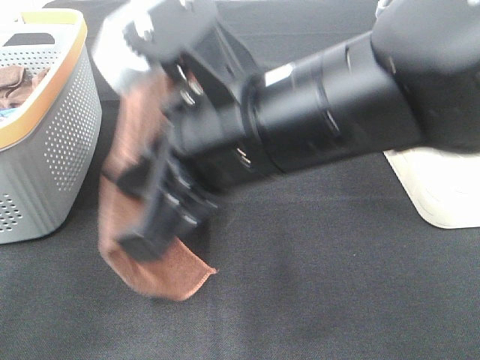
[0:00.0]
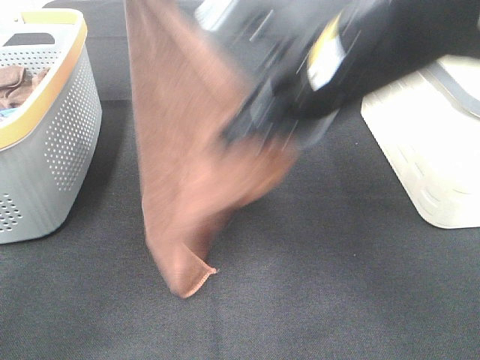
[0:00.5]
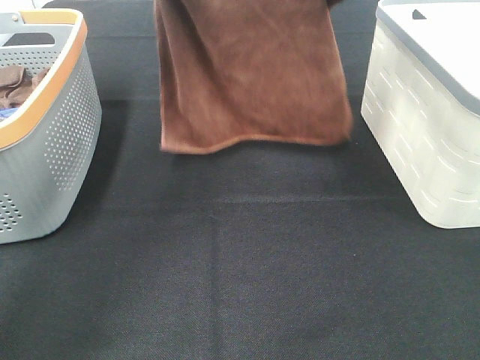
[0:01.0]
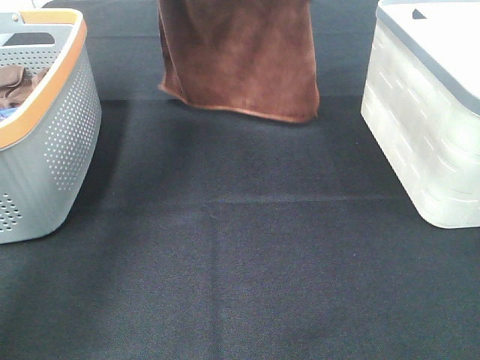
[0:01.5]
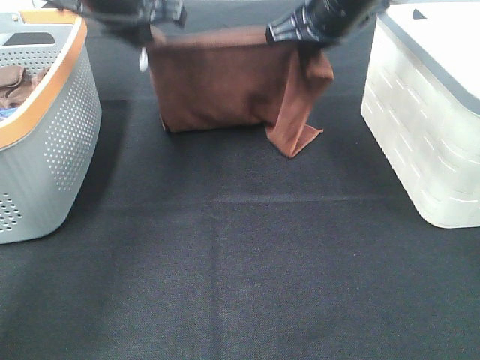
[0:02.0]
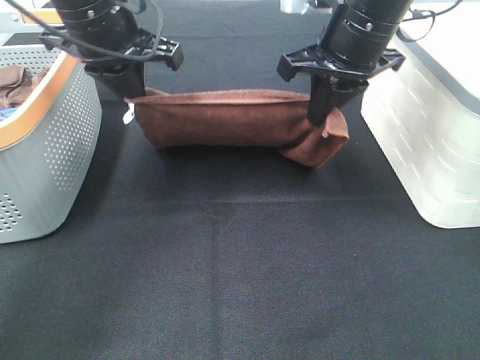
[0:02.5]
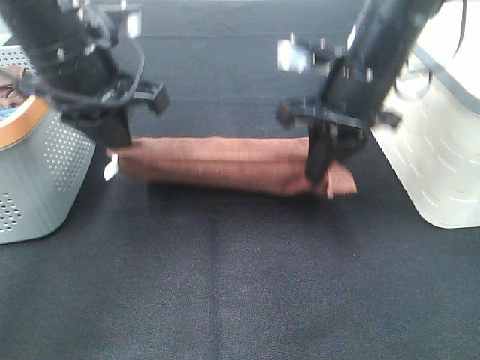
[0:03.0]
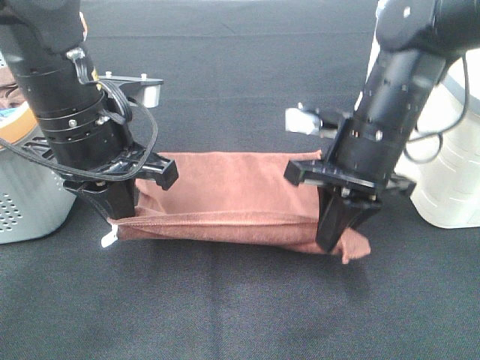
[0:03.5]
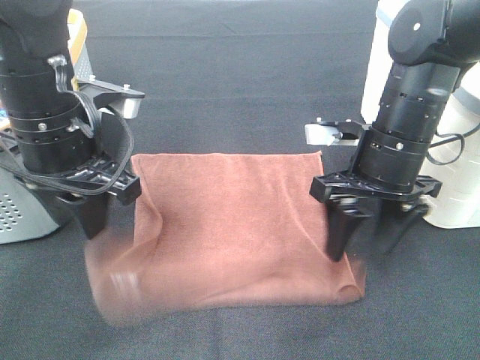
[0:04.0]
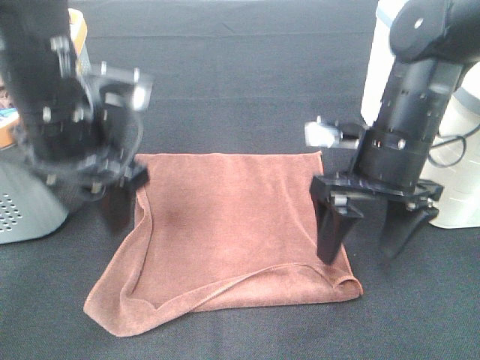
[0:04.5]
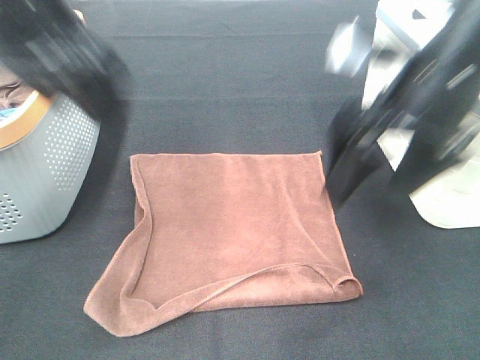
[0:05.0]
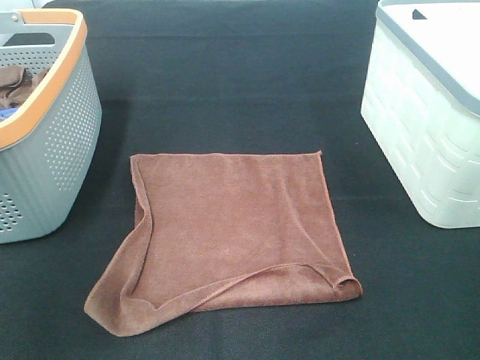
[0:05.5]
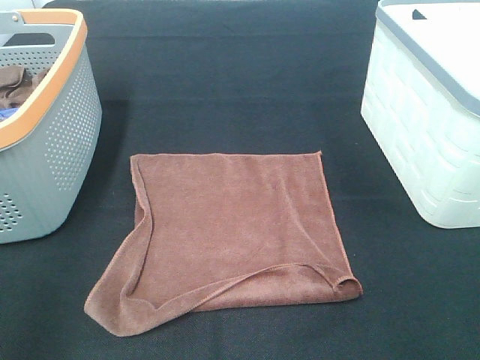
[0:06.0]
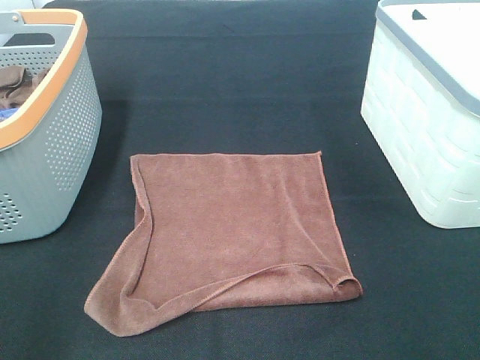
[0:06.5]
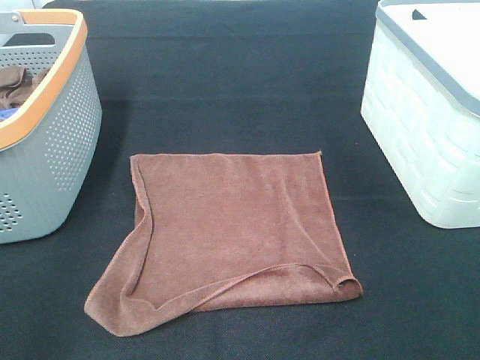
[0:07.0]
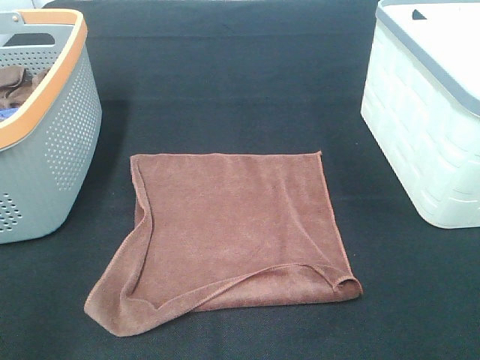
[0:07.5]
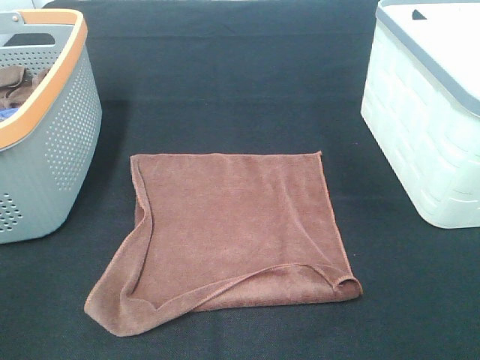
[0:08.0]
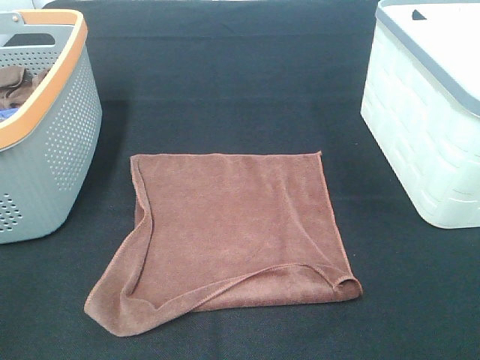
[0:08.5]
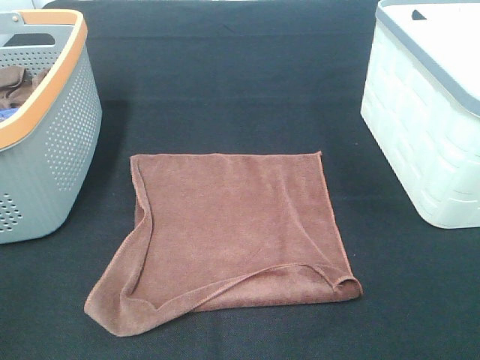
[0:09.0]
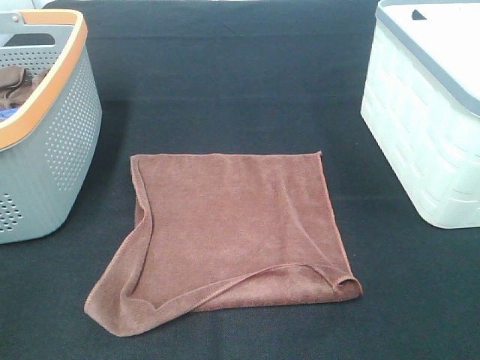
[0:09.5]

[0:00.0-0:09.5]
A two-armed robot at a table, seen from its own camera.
Task of the whole recording: Remove the towel and place it.
0:00.0 to 0:02.0: The right gripper goes roughly 25 cm forward and to the right; the left gripper travels downward and forward by some 10 cm.
0:02.0 to 0:04.0: The right gripper moves backward and downward, approximately 15 cm, and opens its fingers. Meanwhile the left gripper shifts some 15 cm backward, and opens its fingers.
0:04.0 to 0:05.5: The right gripper travels backward, upward and to the right by about 25 cm; the left gripper goes about 20 cm upward, backward and to the left.
0:05.5 to 0:07.5: The left gripper shifts some 15 cm downward and backward. Meanwhile the right gripper shifts roughly 10 cm backward.

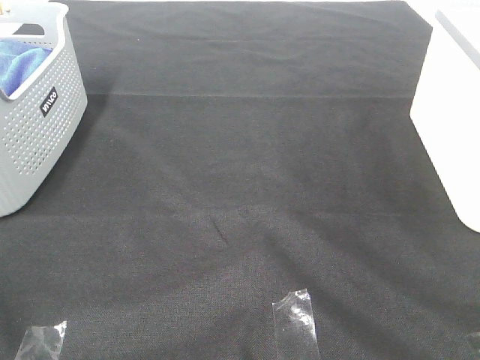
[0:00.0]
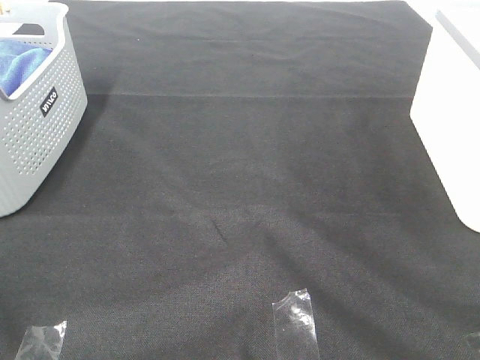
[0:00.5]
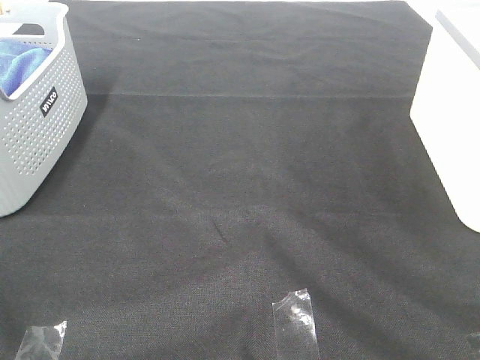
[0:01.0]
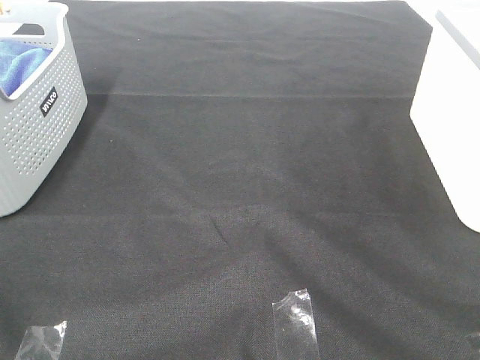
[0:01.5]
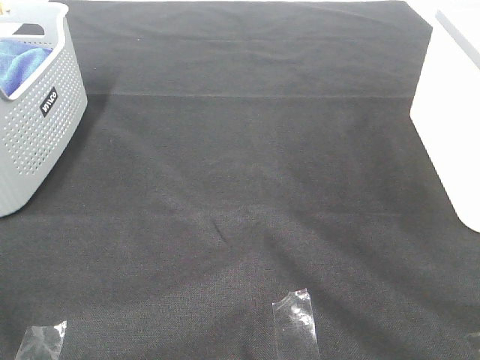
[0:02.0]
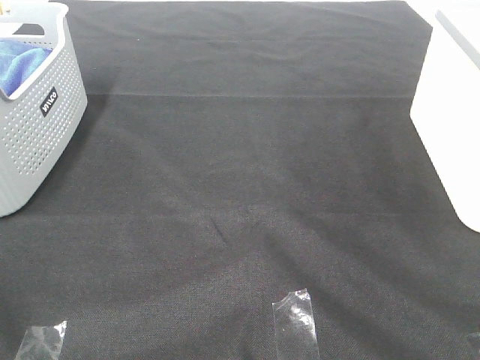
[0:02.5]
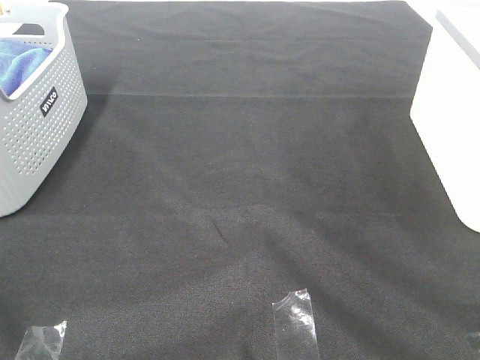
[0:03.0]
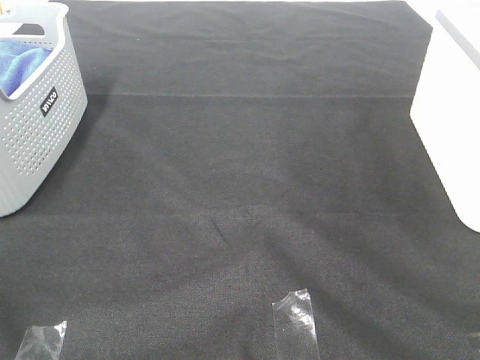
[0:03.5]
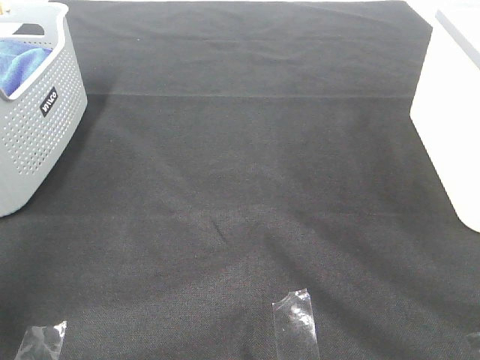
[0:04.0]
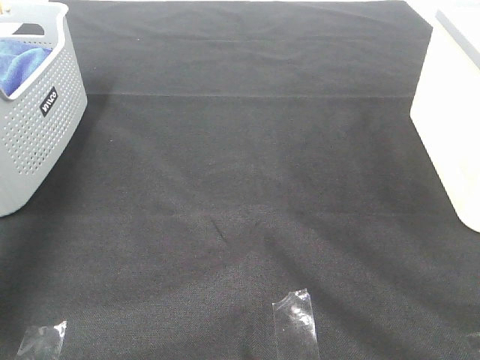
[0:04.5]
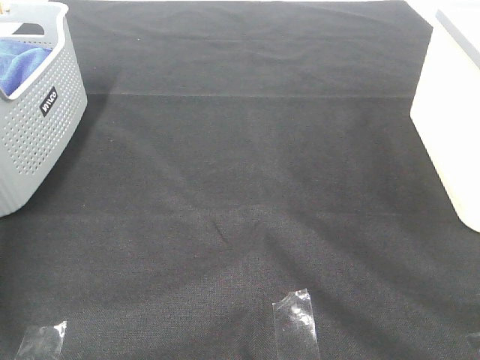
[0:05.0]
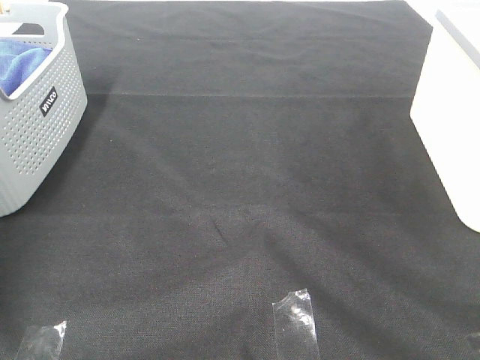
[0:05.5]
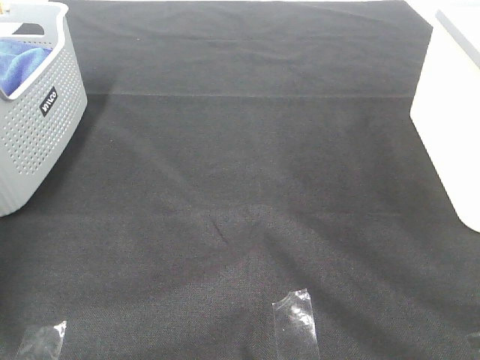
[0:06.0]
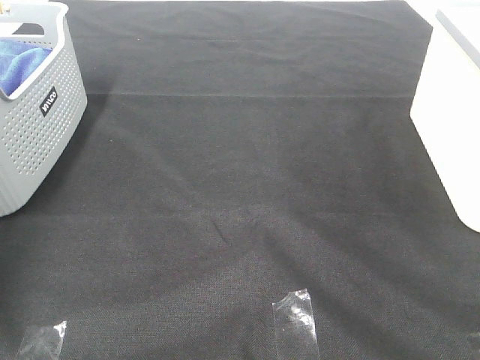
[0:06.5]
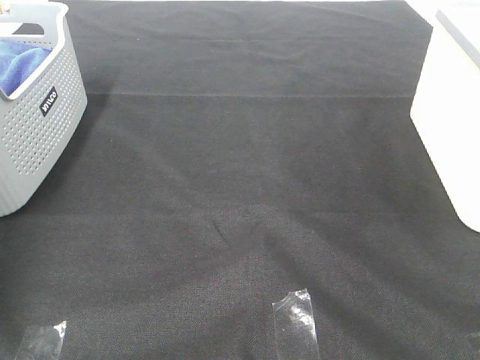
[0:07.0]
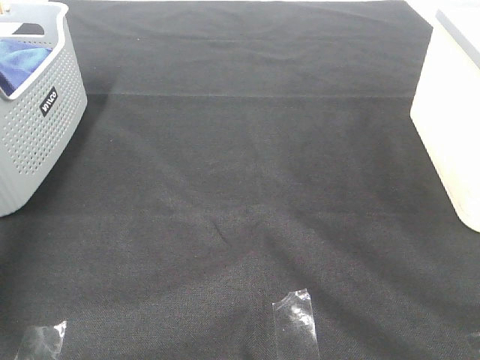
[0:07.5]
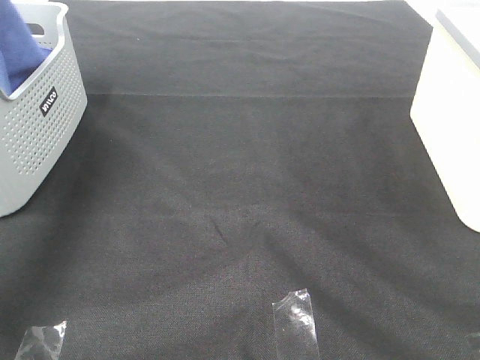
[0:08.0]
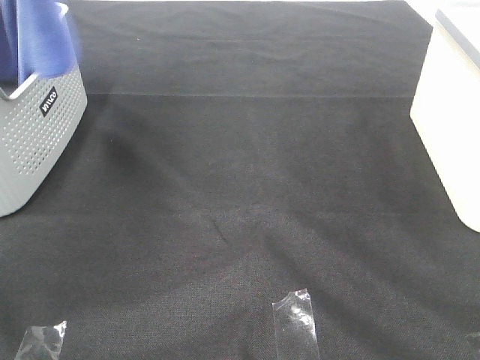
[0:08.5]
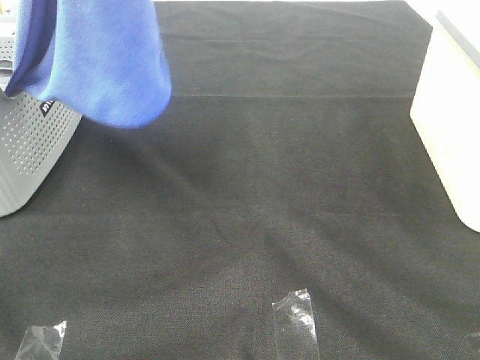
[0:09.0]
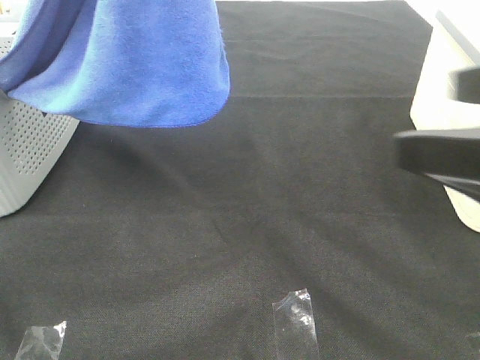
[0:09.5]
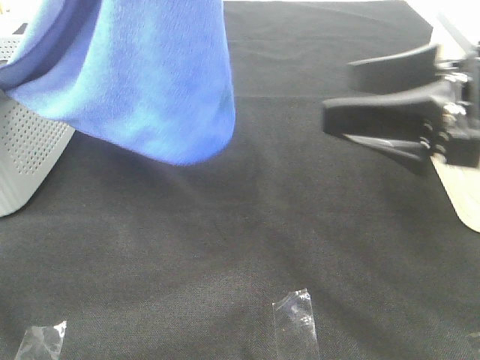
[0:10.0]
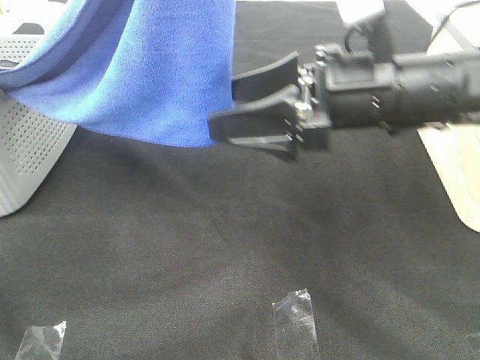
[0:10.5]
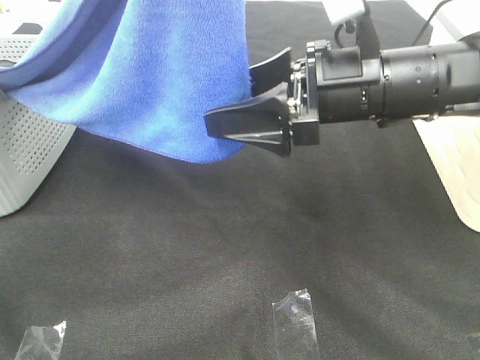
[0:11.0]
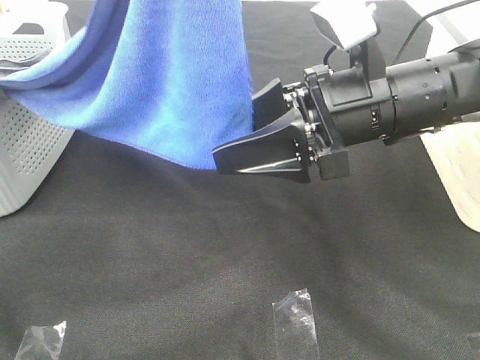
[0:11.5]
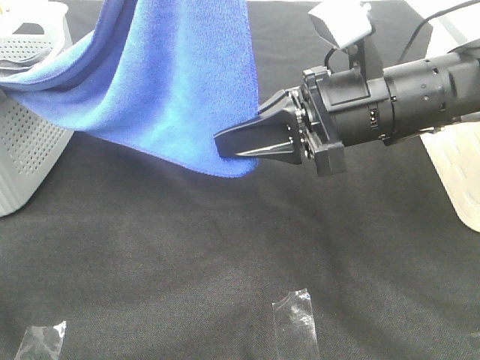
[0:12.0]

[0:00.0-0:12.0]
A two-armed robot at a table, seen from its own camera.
Task of the whole recording: Remove the towel and place it.
0:00.0 to 0:02.0: Both grippers stay put.
0:06.0 to 0:08.0: The left gripper heads upward and to the right, covering roughly 30 cm, and closes.
0:08.0 to 0:10.0: The left gripper travels to the right and backward by about 25 cm, while the right gripper travels forward and to the left by approximately 25 cm.
0:10.0 to 0:12.0: The right gripper goes about 10 cm to the left and forward, and closes its fingers.

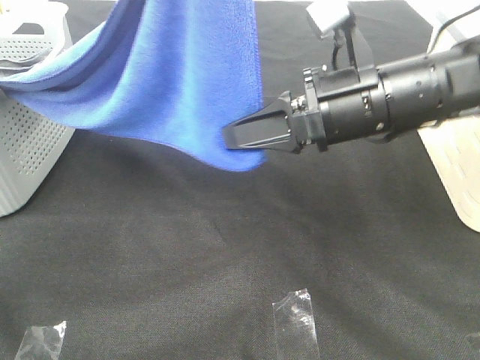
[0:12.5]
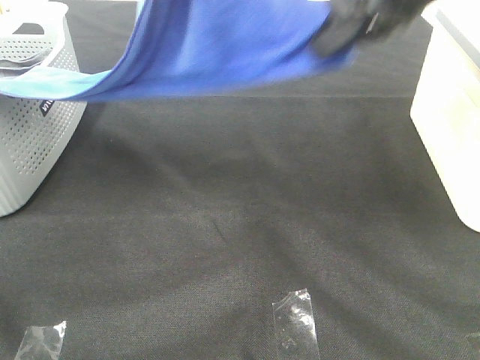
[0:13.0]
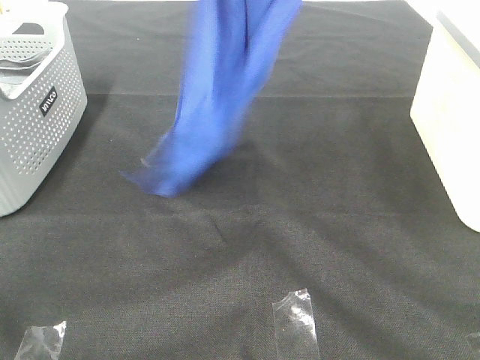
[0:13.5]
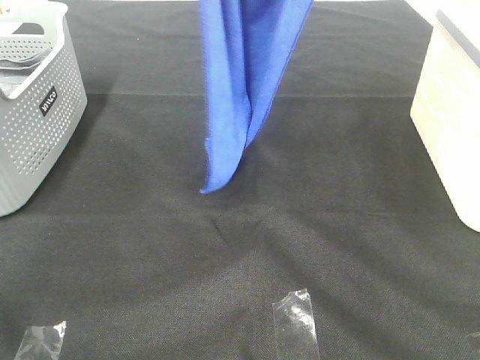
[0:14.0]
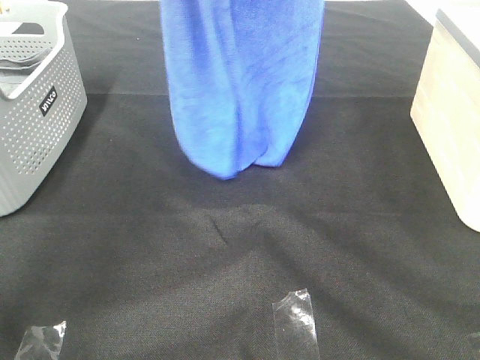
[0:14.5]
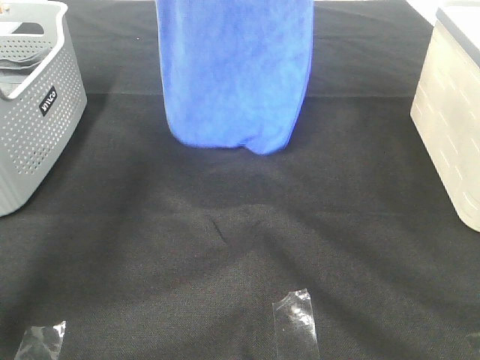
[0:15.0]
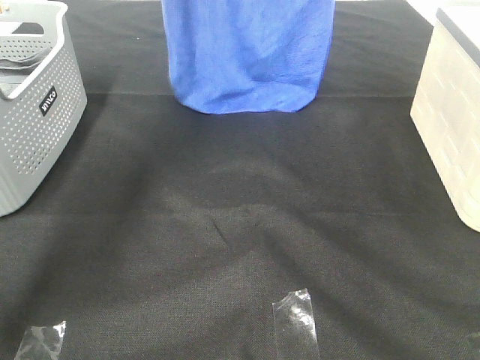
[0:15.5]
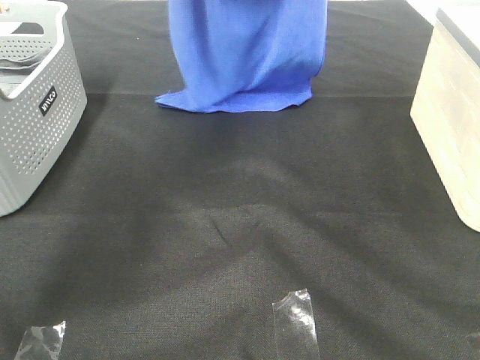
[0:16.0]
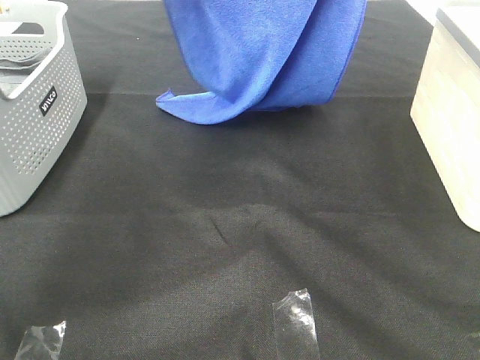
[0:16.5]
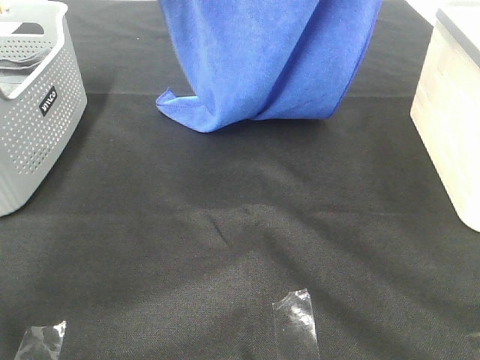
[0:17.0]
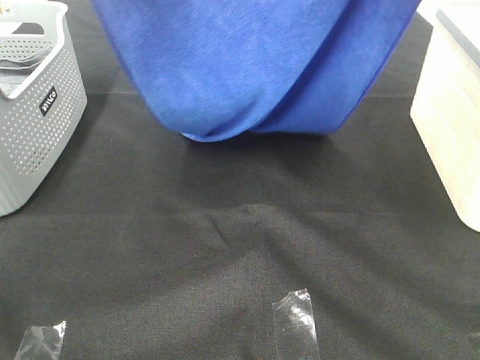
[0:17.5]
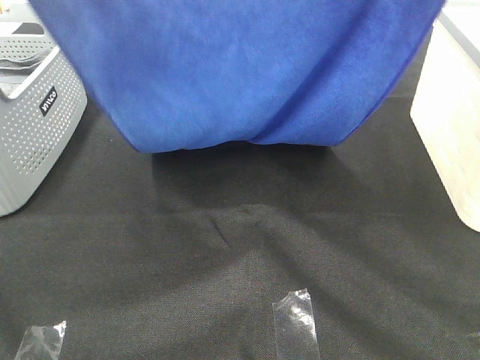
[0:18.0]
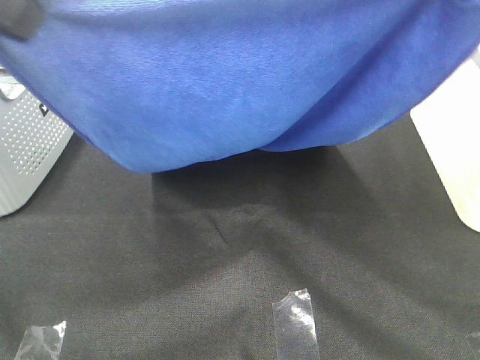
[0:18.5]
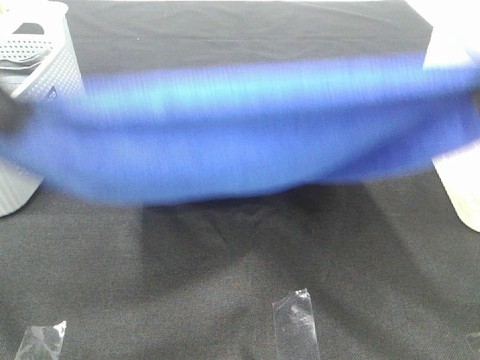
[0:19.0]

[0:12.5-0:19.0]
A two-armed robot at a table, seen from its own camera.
Task of the whole recording: Remove the towel and place it.
Step, 0:12.5 to 0:18.5: Left hand: spread the blue towel flat on the table.
Step, 0:12.5 to 0:18.5: Right hand: spread the blue towel flat on the table.
0:12.5 to 0:14.5: The left gripper heads forward, covering roughly 20 cm. The right gripper goes approximately 30 cm upward and forward.
0:14.5 to 0:17.0: The right gripper moves some 5 cm. Meanwhile the left gripper goes forward and returns, approximately 5 cm each way.
0:17.0 to 0:19.0: Both grippers move backward, some 25 cm.
